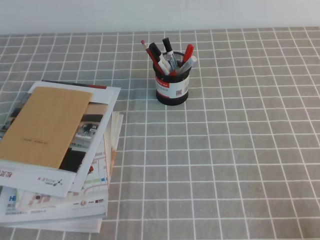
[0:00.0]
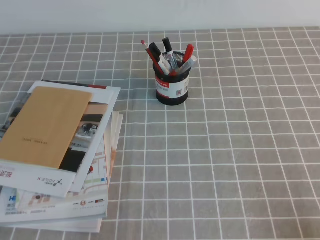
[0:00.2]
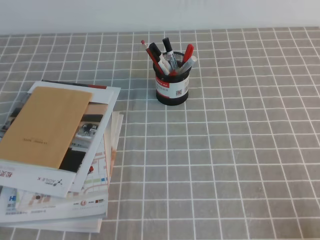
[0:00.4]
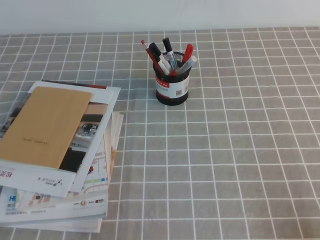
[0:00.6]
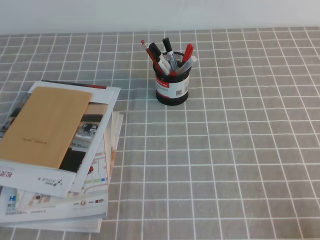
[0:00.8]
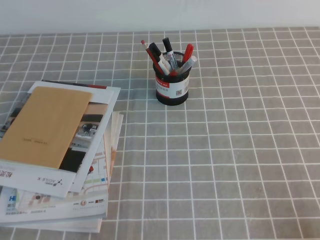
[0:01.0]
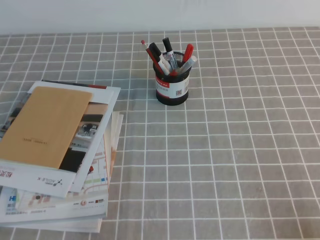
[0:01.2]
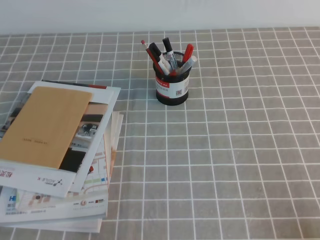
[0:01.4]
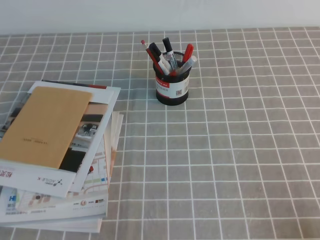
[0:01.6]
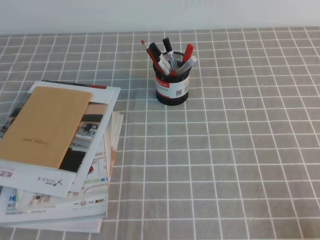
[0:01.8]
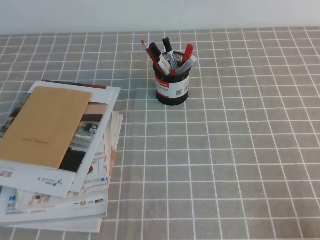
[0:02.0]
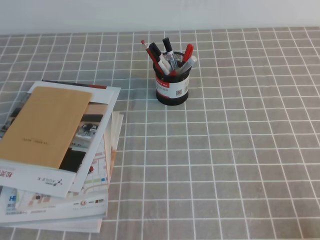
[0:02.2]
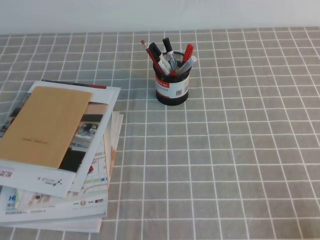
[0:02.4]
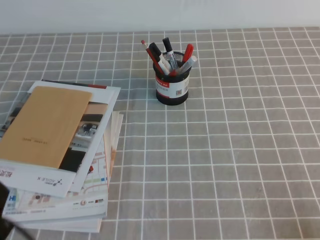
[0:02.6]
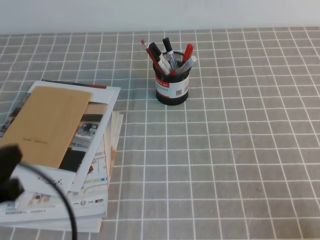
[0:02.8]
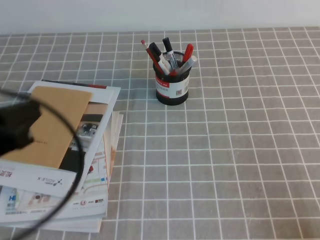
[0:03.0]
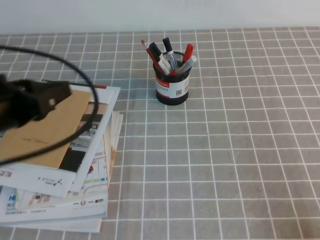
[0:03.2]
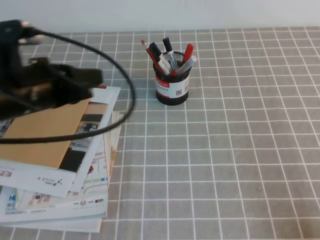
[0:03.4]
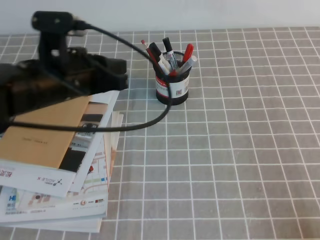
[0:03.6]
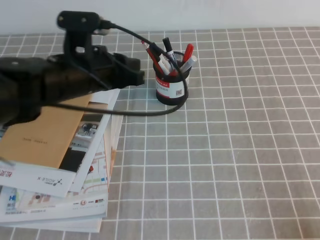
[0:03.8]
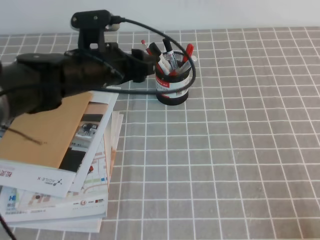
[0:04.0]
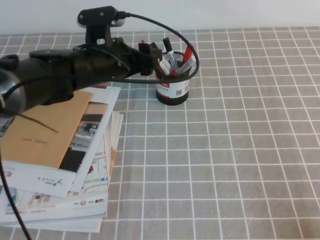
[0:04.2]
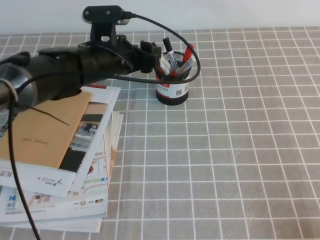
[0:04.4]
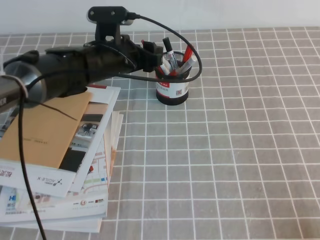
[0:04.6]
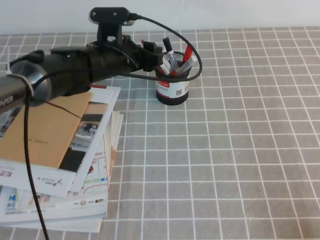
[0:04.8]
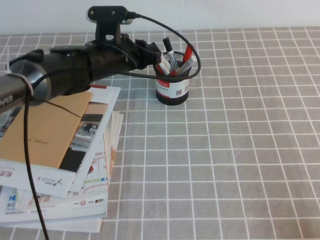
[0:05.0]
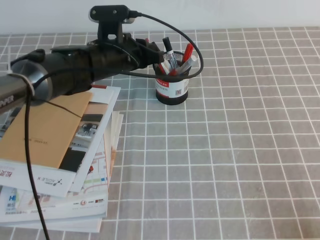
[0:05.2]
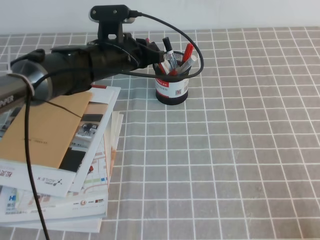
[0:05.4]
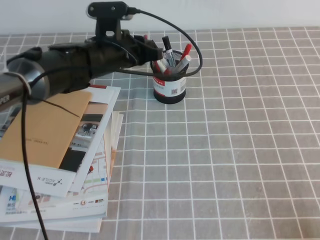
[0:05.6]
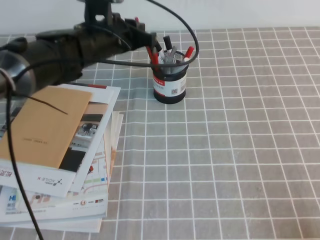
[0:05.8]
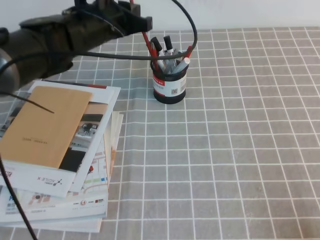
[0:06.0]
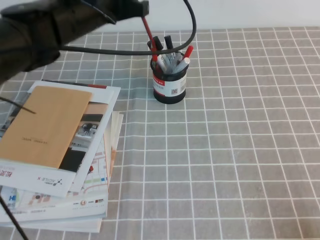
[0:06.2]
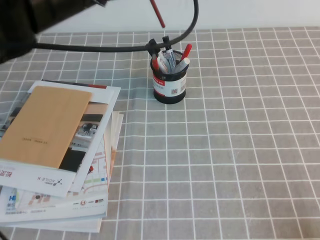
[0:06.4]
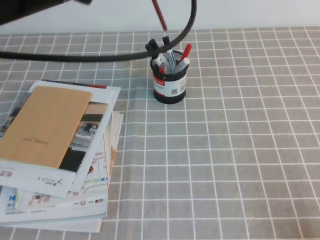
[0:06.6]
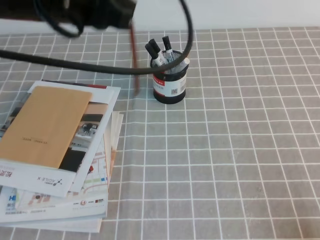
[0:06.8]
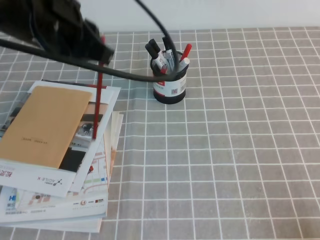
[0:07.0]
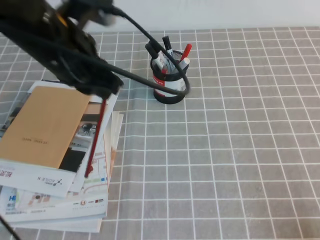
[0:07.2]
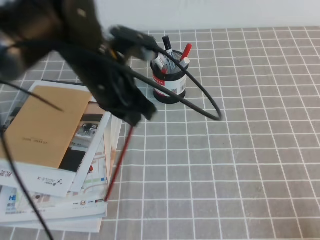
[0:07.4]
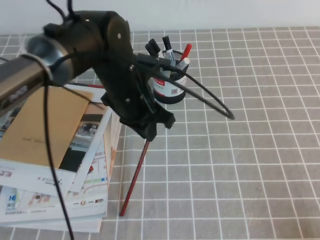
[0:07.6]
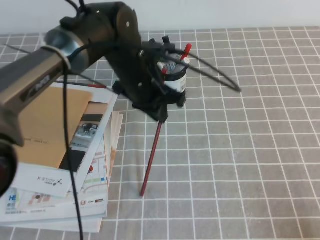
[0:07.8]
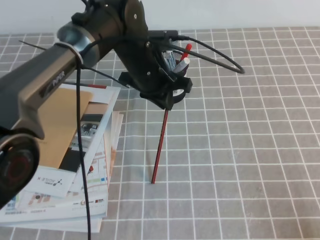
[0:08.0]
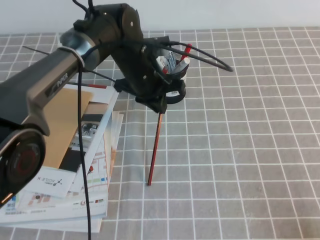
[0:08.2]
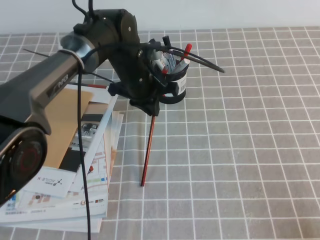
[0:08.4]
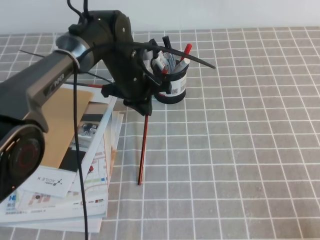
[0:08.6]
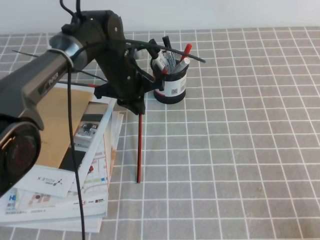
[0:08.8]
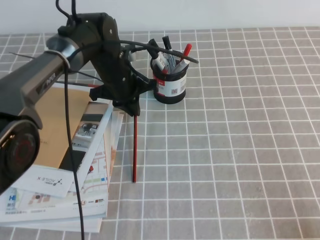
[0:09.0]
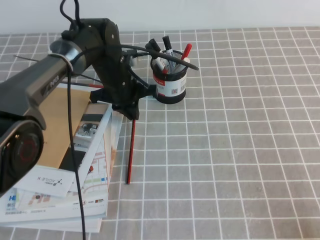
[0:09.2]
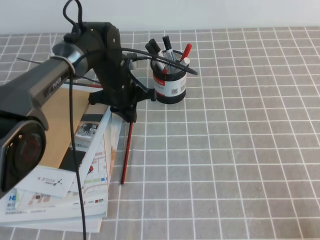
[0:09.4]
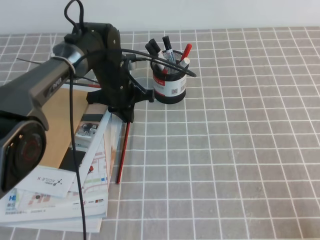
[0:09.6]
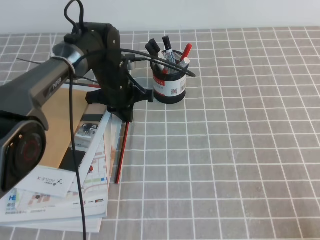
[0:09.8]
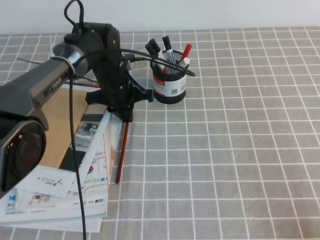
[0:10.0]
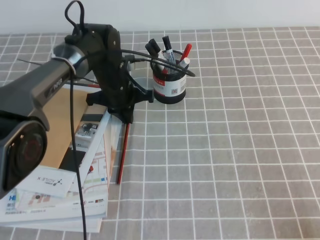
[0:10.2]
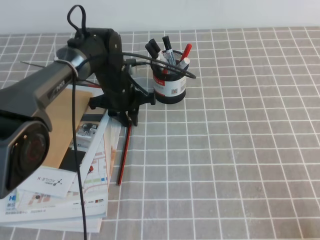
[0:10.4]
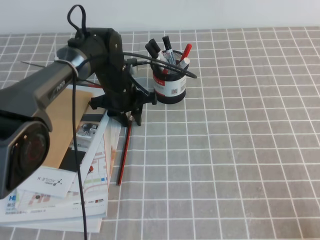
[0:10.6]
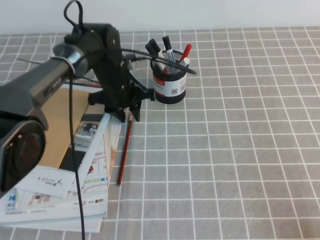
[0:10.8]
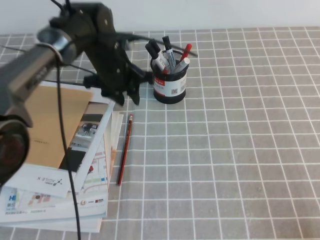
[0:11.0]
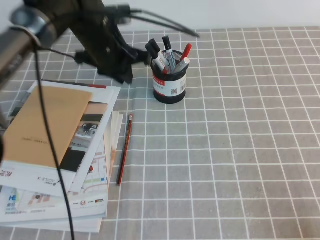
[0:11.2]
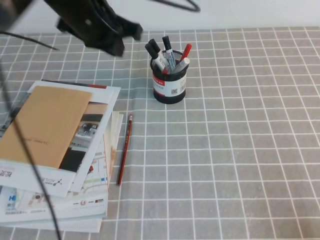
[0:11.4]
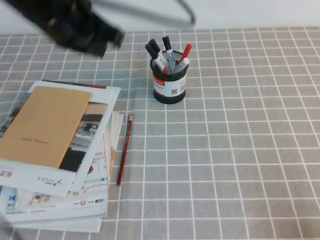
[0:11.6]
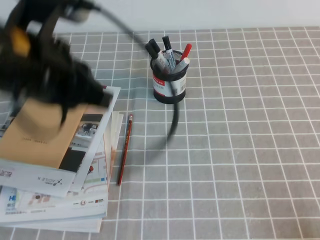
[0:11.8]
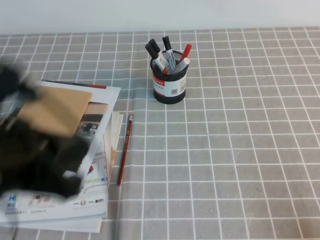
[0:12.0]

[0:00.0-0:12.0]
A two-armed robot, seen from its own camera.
0:01.6 to 0:03.0: The left gripper shifts about 15 cm upward and forward.
0:03.0 to 0:04.4: The left gripper shifts some 30 cm forward and to the right, and opens its fingers.
0:04.4 to 0:06.0: The left gripper shifts roughly 5 cm upward, and closes up.
0:06.0 to 0:07.6: The left gripper moves backward, about 5 cm, and goes upward and returns, approximately 10 cm each way.
0:07.6 to 0:09.0: The left gripper goes roughly 15 cm forward and downward.
0:09.0 to 0:10.4: The grippers make only small movements.
0:10.4 to 0:12.0: The left gripper shifts approximately 35 cm backward and upward.

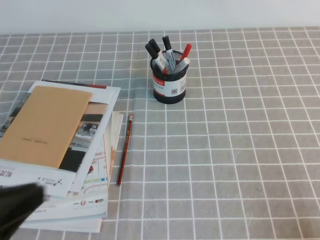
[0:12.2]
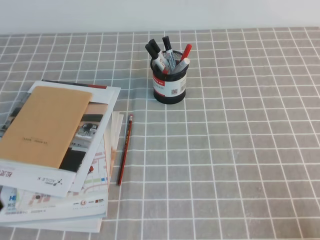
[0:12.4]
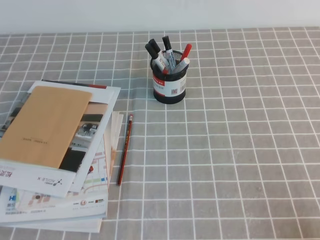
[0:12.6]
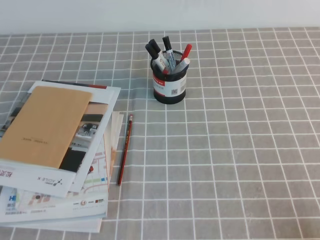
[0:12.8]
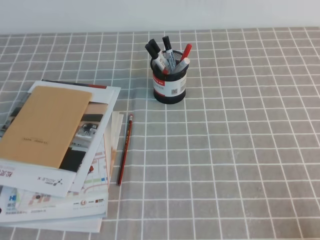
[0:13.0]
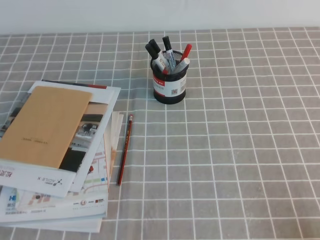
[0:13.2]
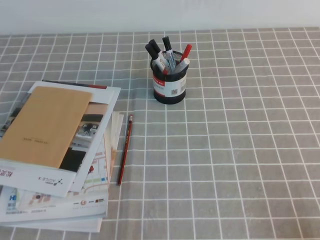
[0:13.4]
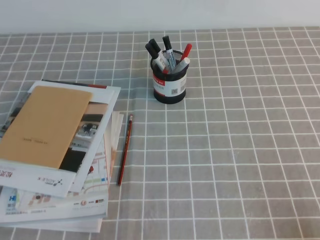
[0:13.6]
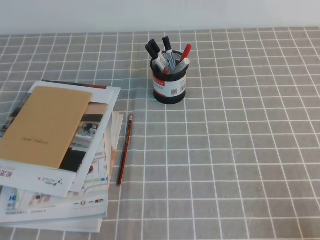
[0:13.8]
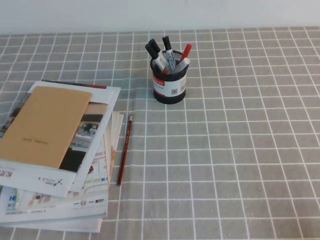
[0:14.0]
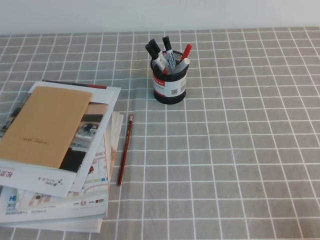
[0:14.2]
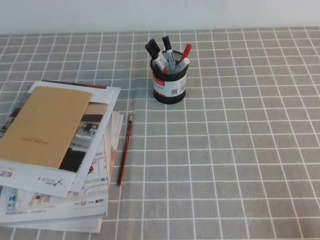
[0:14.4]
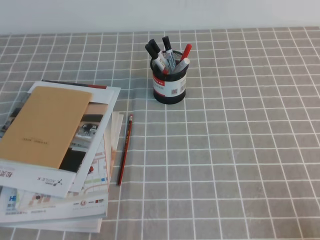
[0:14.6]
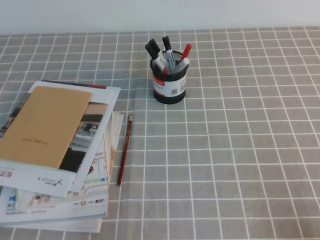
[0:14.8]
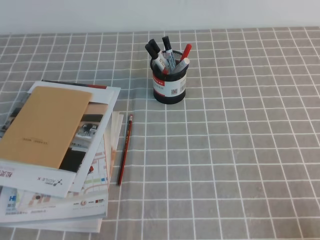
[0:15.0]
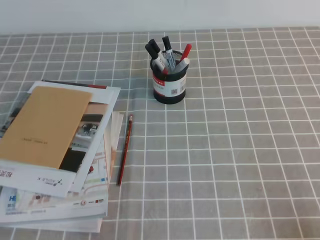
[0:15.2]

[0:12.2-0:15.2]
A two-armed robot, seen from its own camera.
Step, 0:12.2 to 0:15.2: Pick up the pen from the pen holder.
0:12.2 to 0:13.8: The left gripper heads downward, covering approximately 20 cm.
